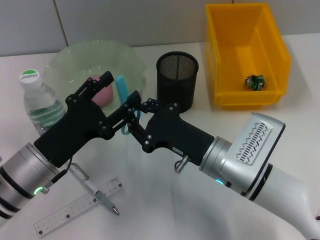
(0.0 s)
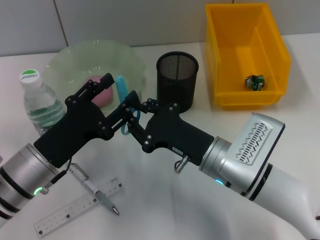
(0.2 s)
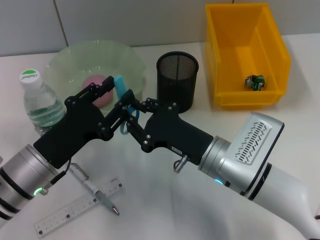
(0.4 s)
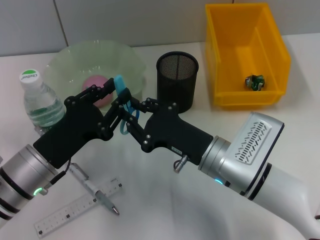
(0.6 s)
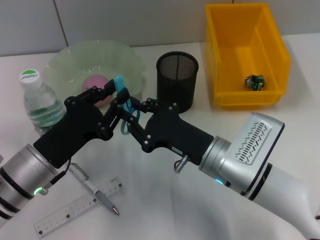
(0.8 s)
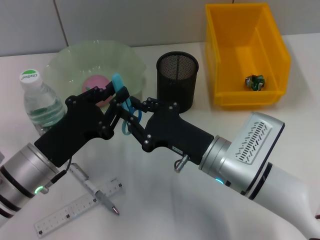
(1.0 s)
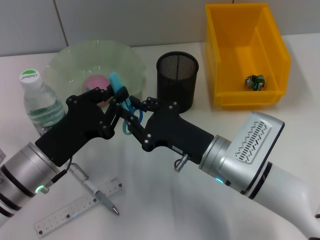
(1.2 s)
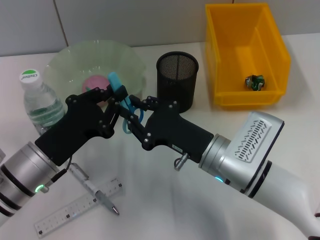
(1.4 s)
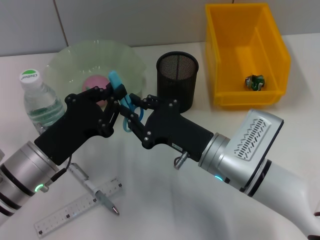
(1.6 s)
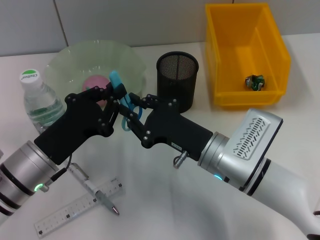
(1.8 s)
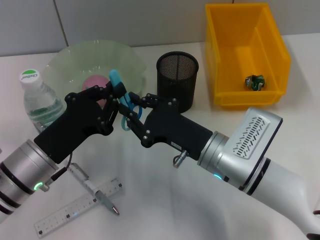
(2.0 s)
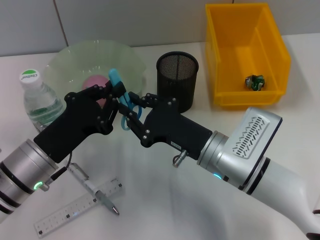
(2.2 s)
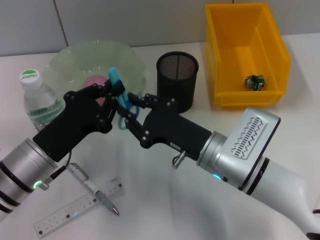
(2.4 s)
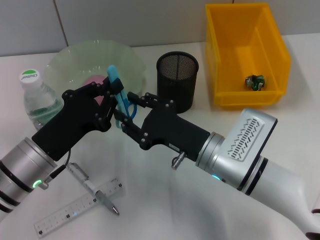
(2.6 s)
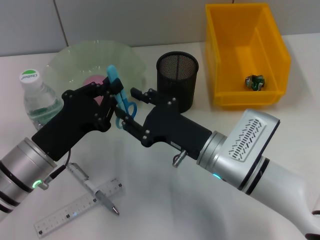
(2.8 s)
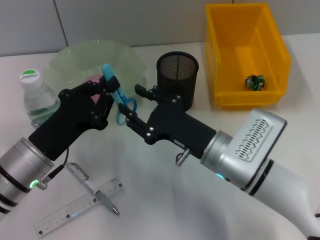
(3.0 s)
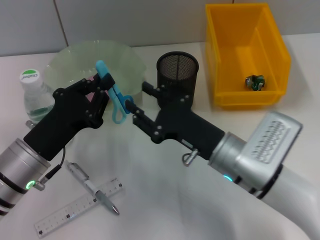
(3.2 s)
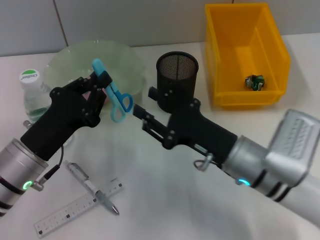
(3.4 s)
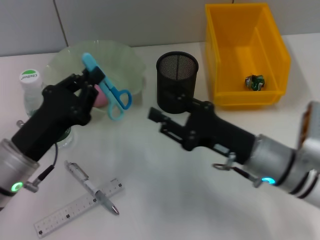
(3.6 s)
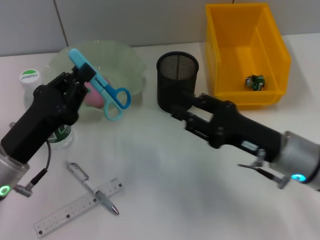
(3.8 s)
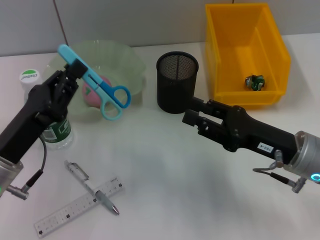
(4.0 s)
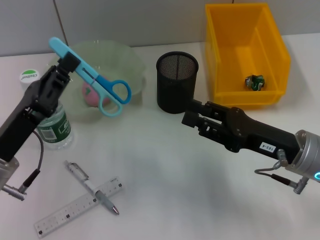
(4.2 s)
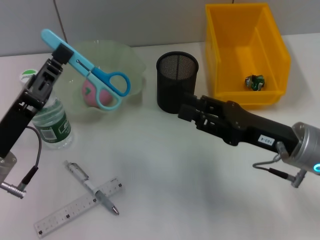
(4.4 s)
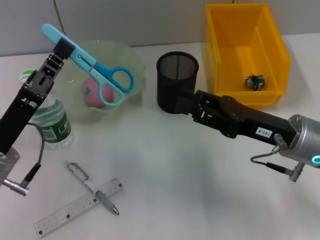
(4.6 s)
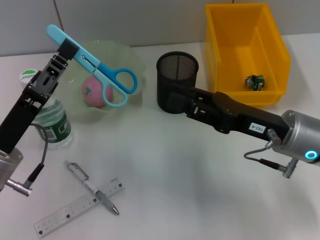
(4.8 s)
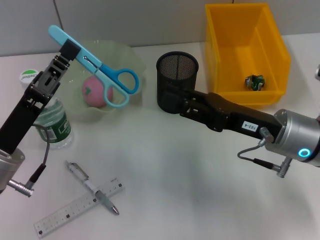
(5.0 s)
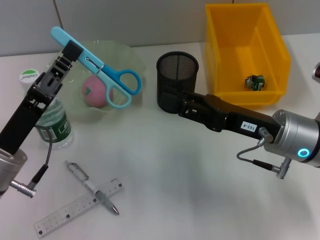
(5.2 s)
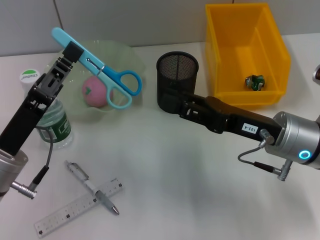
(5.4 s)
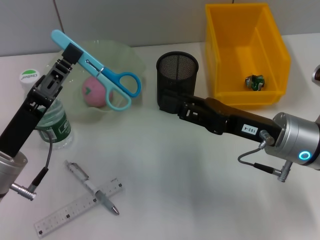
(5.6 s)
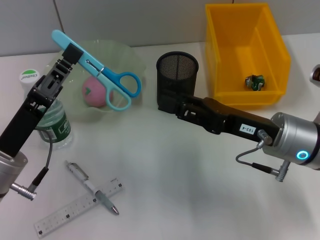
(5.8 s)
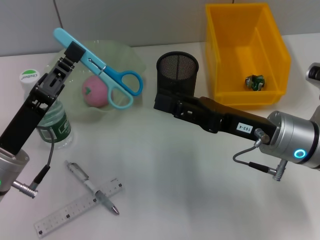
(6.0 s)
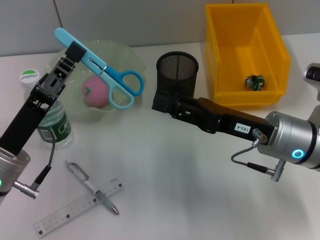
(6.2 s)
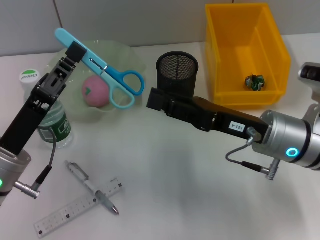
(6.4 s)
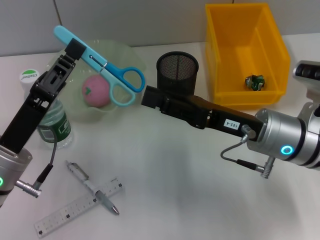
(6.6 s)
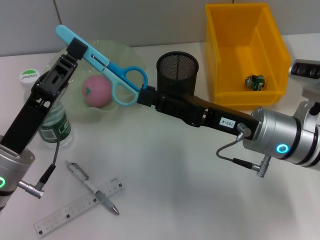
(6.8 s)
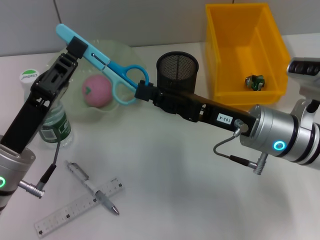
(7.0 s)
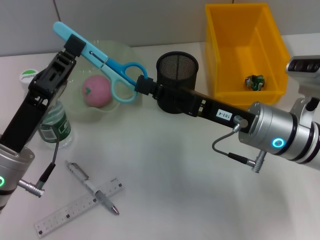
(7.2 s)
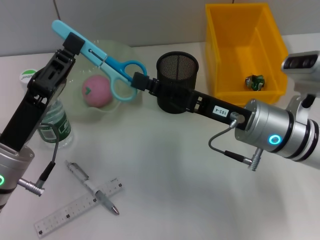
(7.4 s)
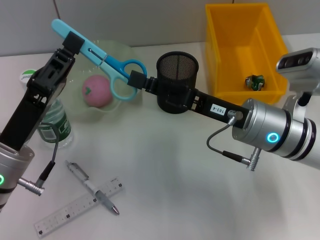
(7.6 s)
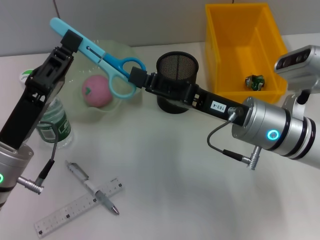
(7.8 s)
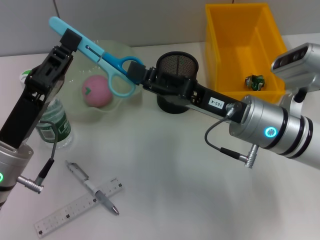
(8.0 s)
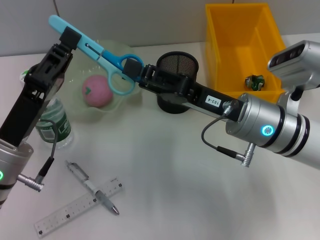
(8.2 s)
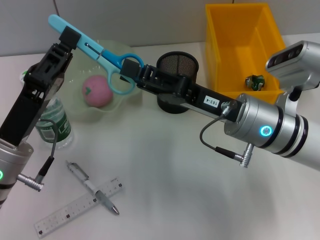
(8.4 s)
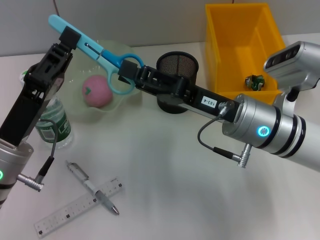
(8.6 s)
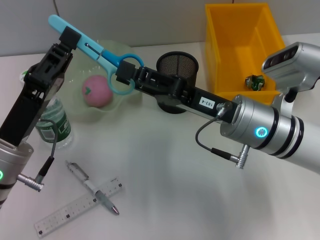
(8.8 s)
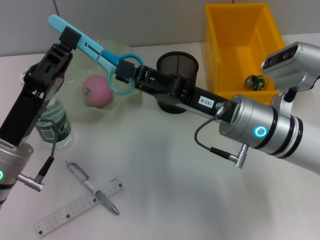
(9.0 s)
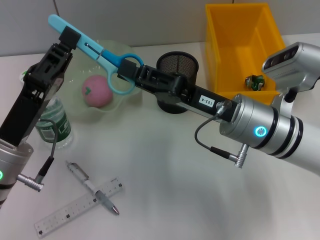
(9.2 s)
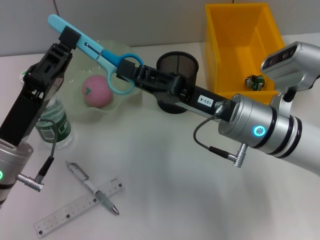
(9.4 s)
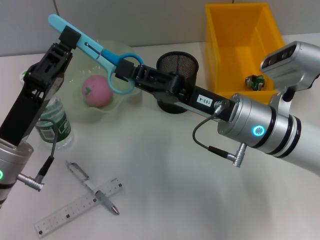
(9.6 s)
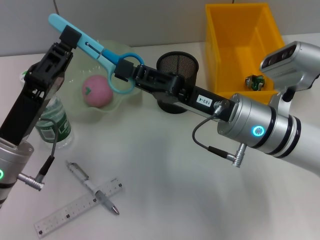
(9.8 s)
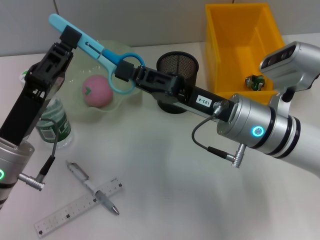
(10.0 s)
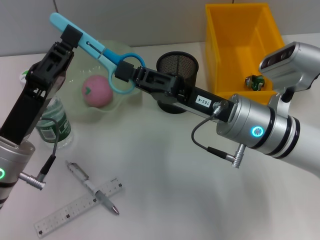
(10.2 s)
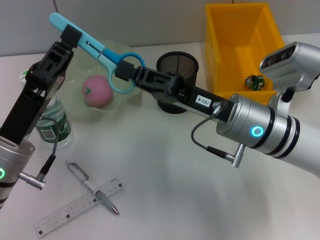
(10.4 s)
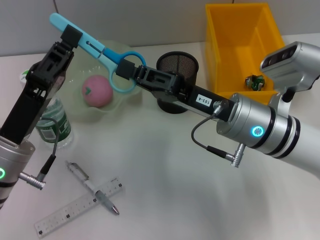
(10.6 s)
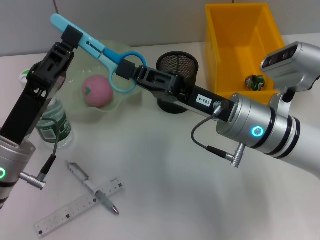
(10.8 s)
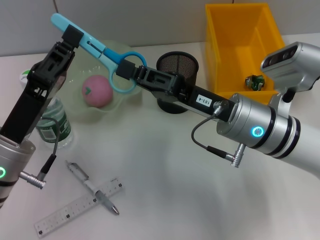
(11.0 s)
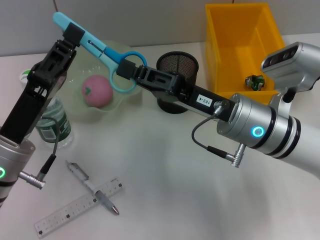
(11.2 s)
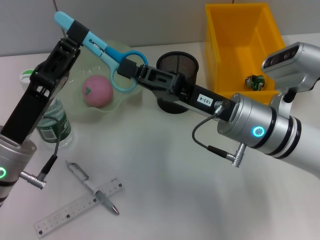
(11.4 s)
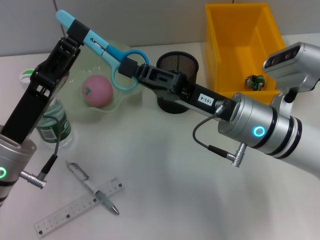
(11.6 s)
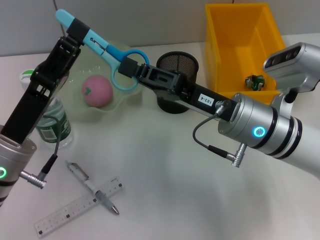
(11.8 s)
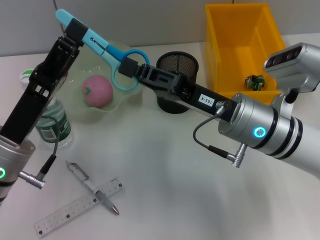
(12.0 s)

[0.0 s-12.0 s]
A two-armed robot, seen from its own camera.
Step, 0.0 to 2.6 s: Pass the blue scissors from the right hand to the left hand.
0.0 to 1.6 s: The left gripper closes its fingers.
1.6 to 3.0 s: There are only small adjustments of the grippers.
3.0 to 4.4 s: The right gripper travels to the right by approximately 10 cm.
4.4 to 6.0 s: The grippers make only small movements.
6.0 to 9.0 s: The grippers stay close to where they were, moving slightly.
9.0 to 10.4 s: The right gripper closes its fingers.
10.4 to 12.0 s: The left gripper opens.

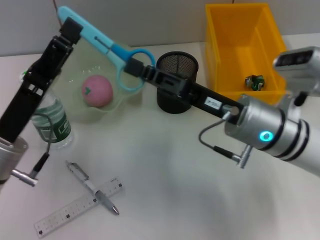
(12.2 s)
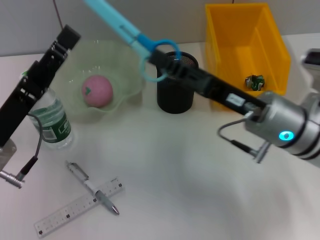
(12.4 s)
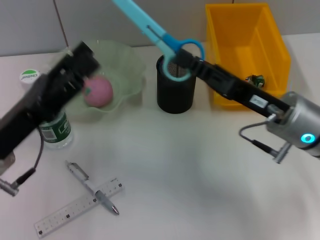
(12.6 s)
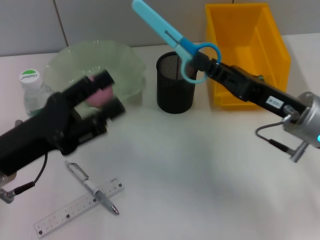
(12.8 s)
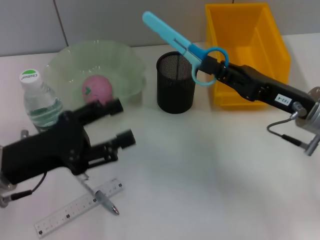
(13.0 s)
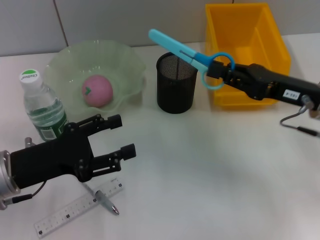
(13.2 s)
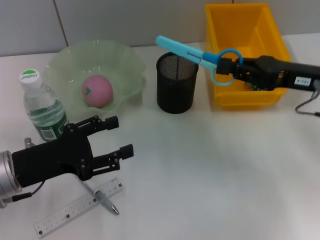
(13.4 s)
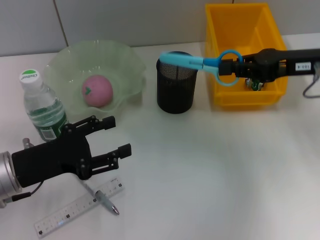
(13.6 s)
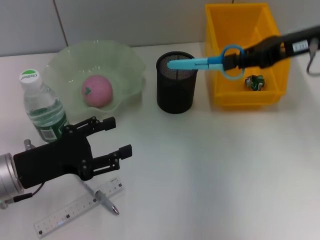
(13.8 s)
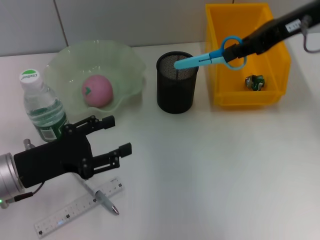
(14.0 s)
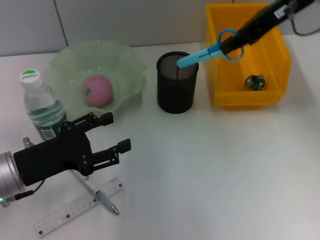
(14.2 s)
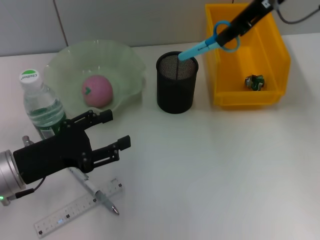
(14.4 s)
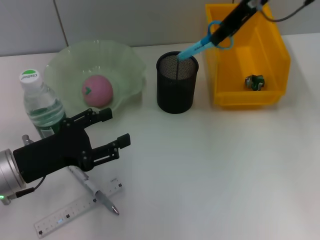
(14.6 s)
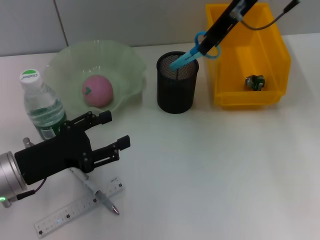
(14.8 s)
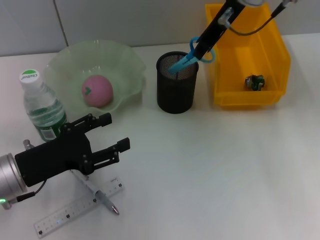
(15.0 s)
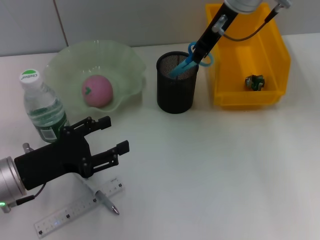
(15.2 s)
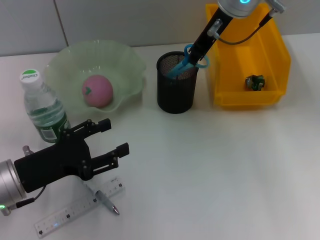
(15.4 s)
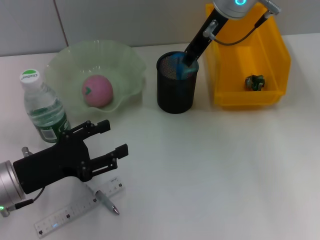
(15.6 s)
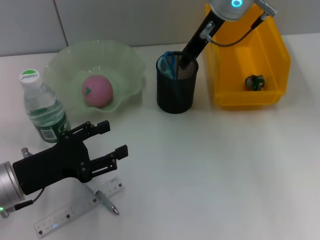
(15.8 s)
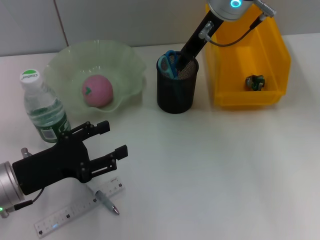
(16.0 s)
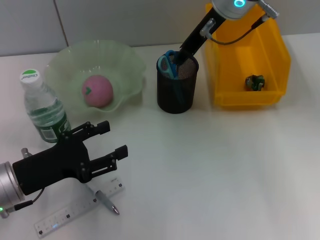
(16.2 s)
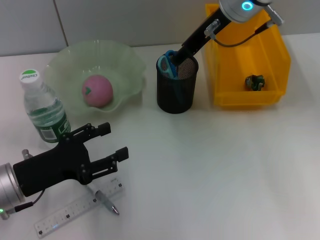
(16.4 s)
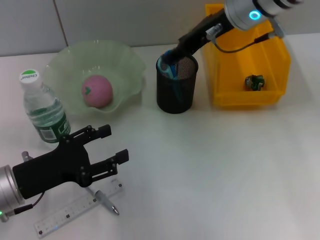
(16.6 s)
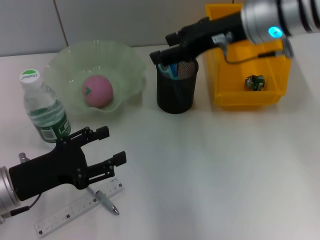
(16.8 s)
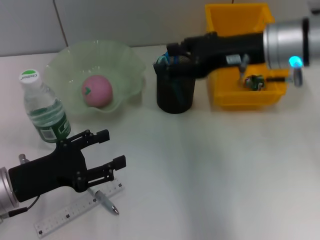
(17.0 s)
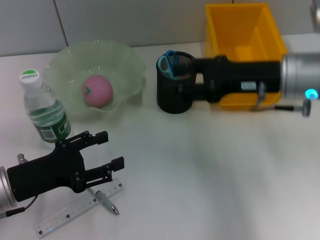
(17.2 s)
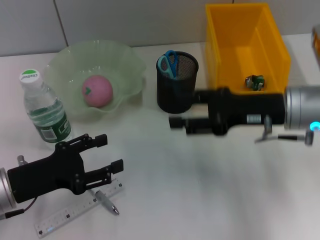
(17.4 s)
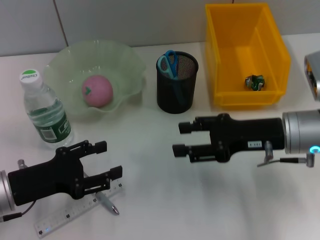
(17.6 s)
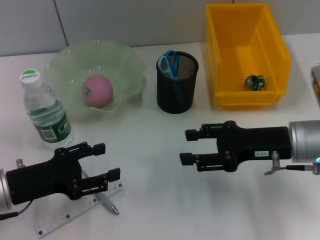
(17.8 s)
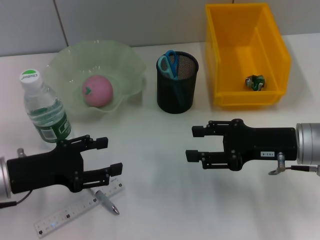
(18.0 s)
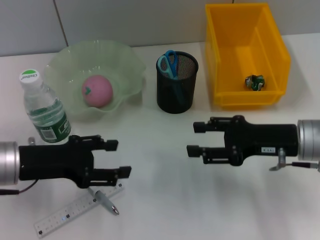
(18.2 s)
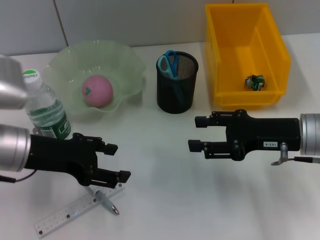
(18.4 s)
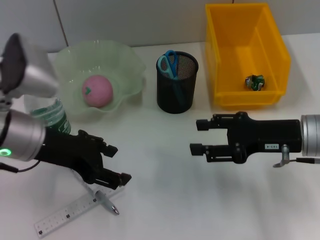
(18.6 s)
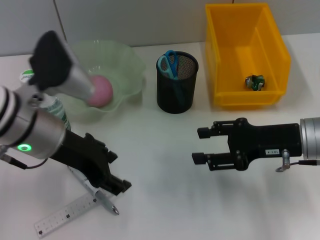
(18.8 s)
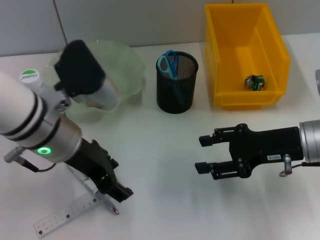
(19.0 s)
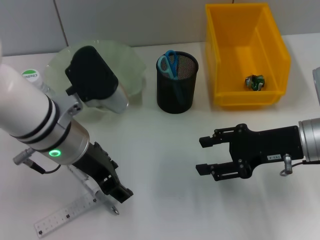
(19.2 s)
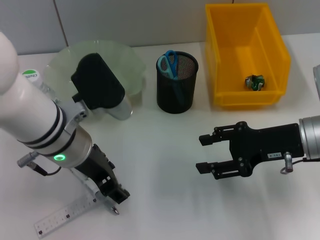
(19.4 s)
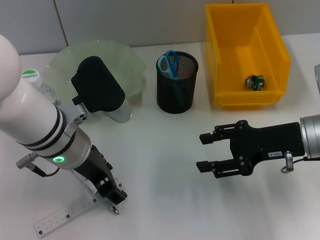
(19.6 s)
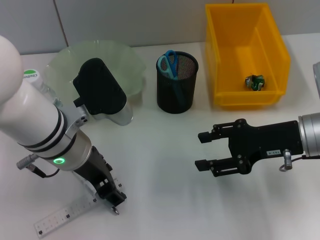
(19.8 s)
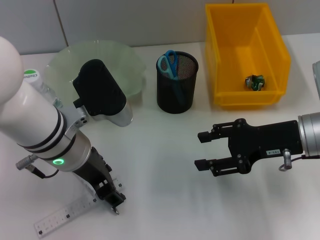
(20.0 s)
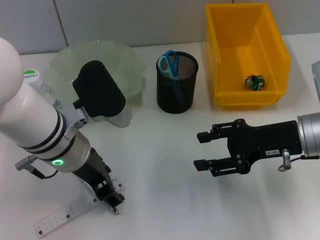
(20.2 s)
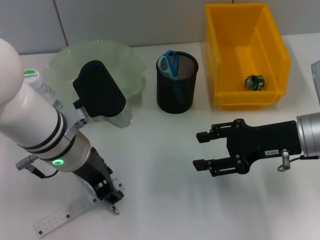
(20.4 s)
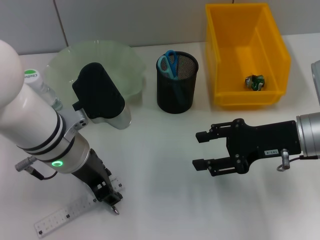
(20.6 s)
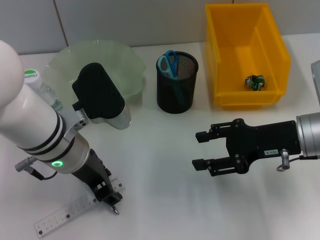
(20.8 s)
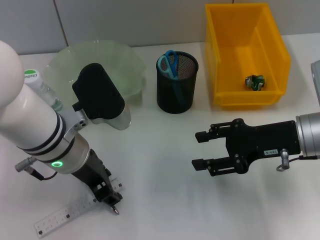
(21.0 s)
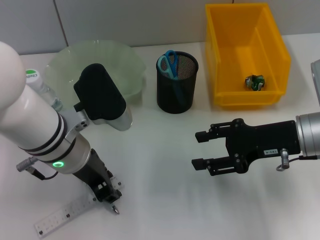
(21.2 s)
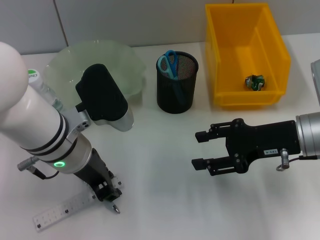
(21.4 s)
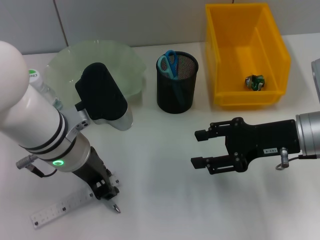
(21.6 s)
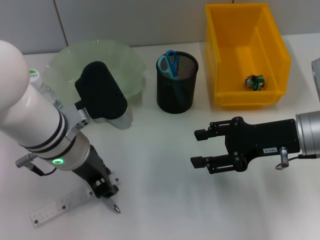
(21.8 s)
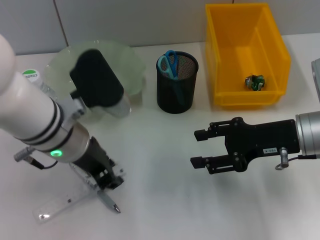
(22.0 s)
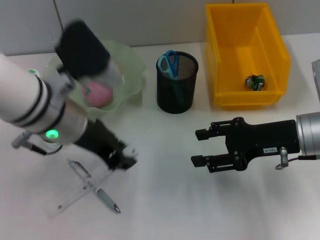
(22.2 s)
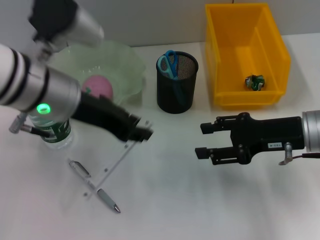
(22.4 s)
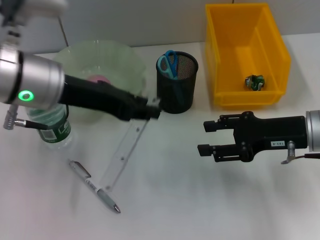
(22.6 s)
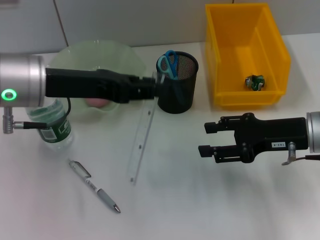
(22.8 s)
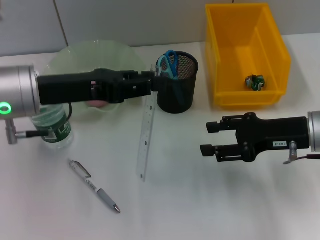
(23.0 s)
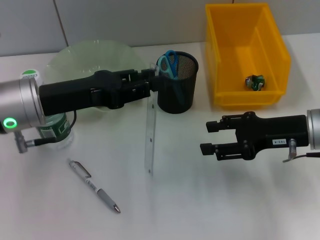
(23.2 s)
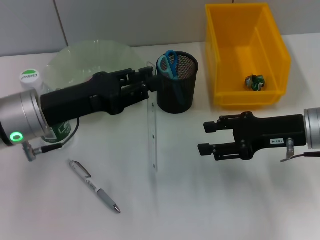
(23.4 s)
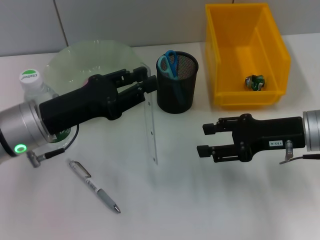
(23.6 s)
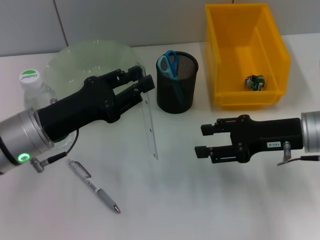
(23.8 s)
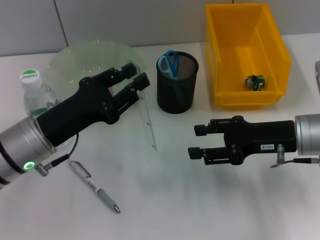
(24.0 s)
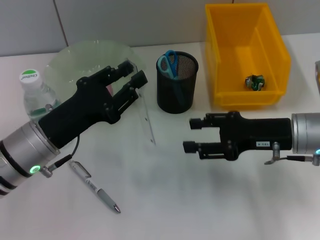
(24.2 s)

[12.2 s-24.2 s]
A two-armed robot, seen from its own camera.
Step, 12.4 to 16.0 s: Place the blue scissors into the pen holder with the right hand.
Step, 16.2 to 21.4 s: Grab the ruler with the left hand.
12.2 to 13.8 s: The right gripper is displaced to the right, upward and forward by about 20 cm.
13.8 to 15.2 s: The right gripper heads to the left and forward, covering about 15 cm.
15.2 to 16.6 s: The right gripper opens.
16.6 to 18.2 s: The right gripper goes about 20 cm downward, backward and to the right. Meanwhile the left gripper shifts by approximately 5 cm.
18.2 to 19.8 s: The left gripper goes approximately 10 cm to the right.
19.8 to 21.2 s: Both grippers stay put.
21.2 to 22.6 s: The left gripper moves upward, some 10 cm.
22.6 to 24.2 s: The left gripper goes some 15 cm downward.
